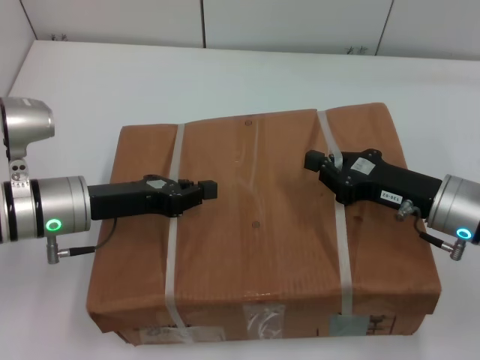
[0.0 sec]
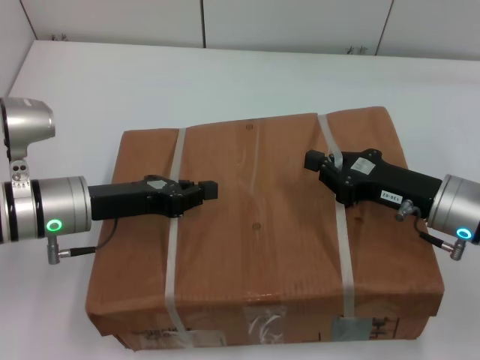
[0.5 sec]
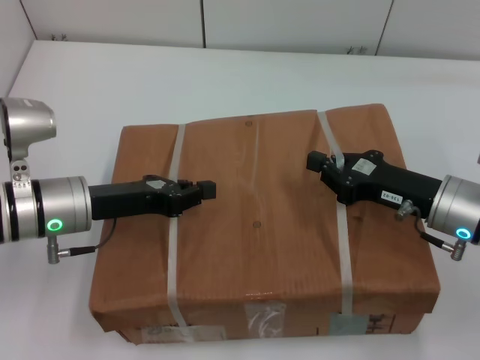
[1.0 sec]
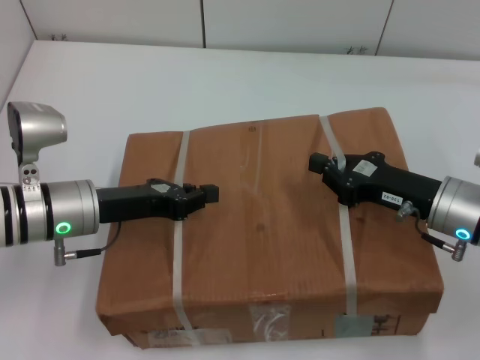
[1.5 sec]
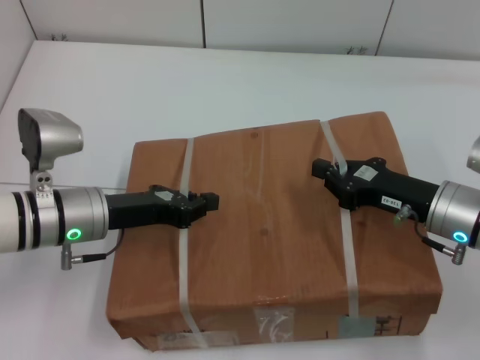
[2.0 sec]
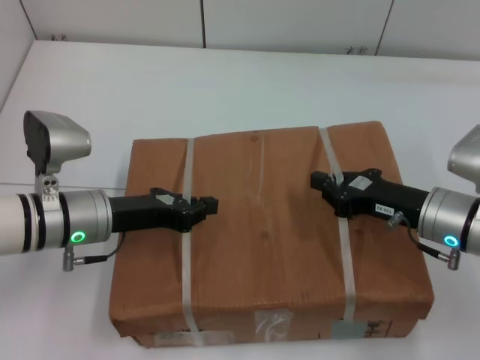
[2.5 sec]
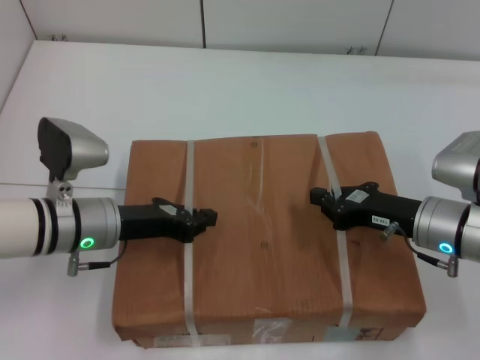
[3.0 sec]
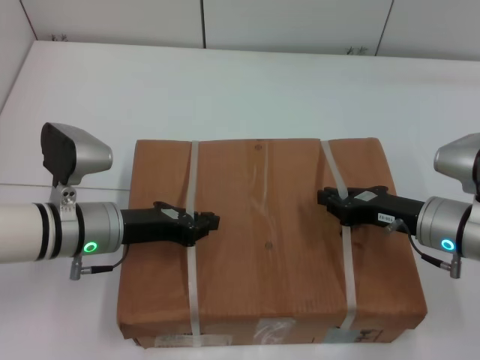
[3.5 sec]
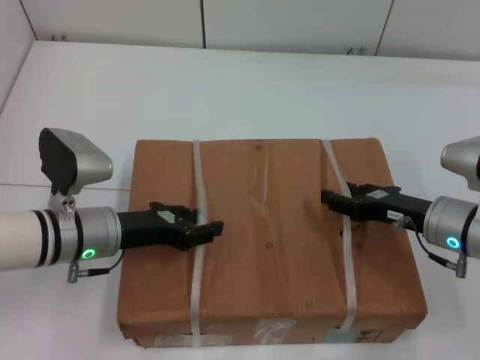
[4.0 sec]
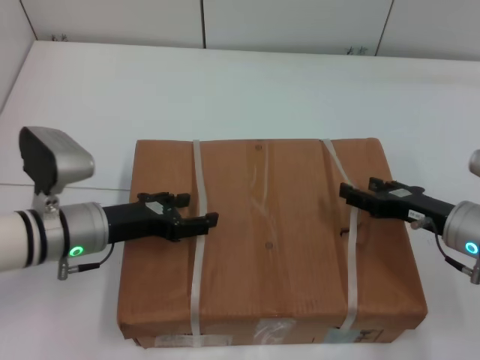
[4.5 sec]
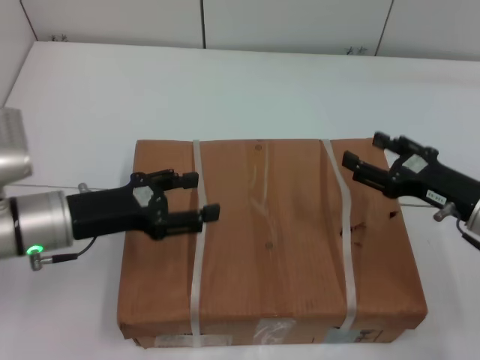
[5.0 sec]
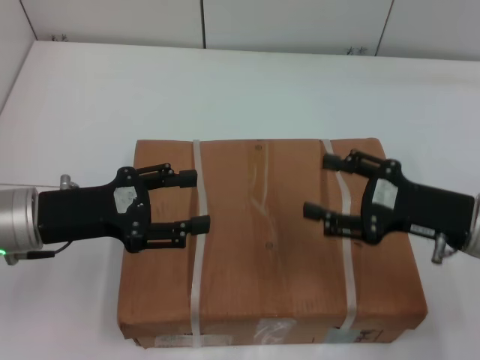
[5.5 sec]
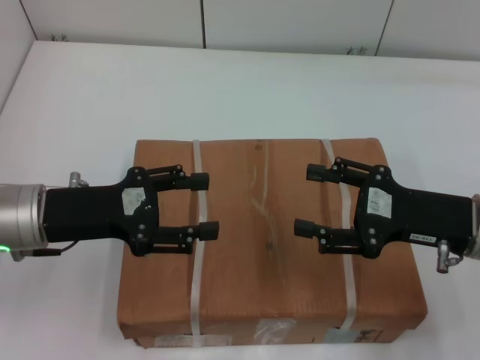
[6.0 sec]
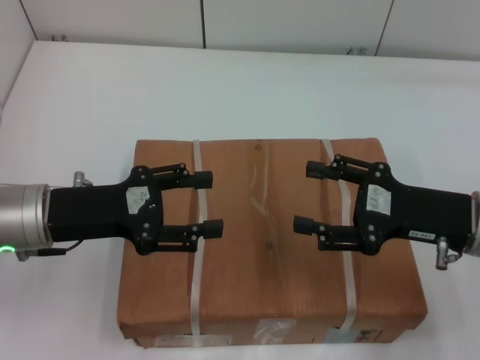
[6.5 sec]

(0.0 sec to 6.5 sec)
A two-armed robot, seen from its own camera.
Task of the whole recording: place the box on the table with both arms.
Step, 0.0 sec - 3.0 sec: Place the box on the table with left gripper.
Step, 0.0 sec - 3.0 sec: Place the box on the table with right gripper.
Step, 3.5 sec - 4.0 sec: Loosen the box on the table with left gripper.
Step, 3.5 sec - 4.0 sec: Loosen the box on the table with right gripper.
0.0 sec - 2.0 sec: The grippers move only a little.
2.0 sec - 4.5 sec: The right gripper opens its fingers. The left gripper opens up.
4.5 sec - 6.5 sec: Both grippers move upward, some 5 cm.

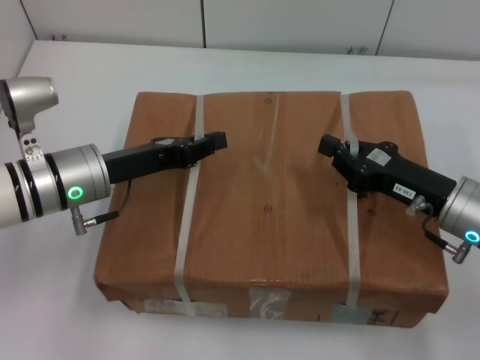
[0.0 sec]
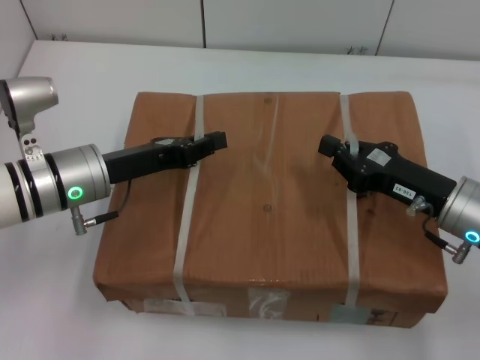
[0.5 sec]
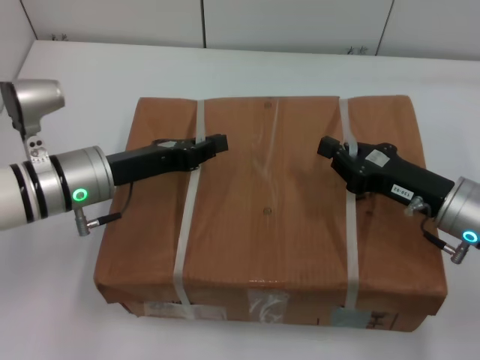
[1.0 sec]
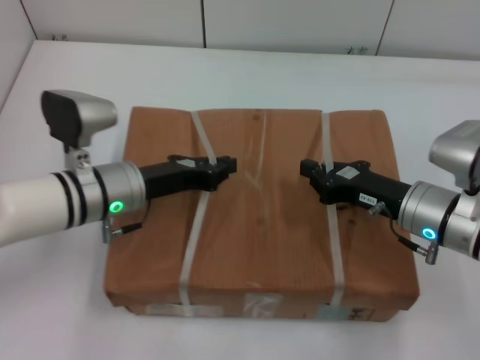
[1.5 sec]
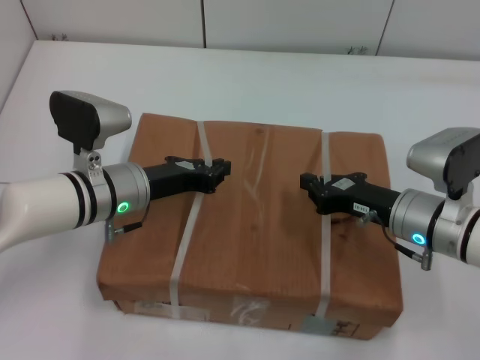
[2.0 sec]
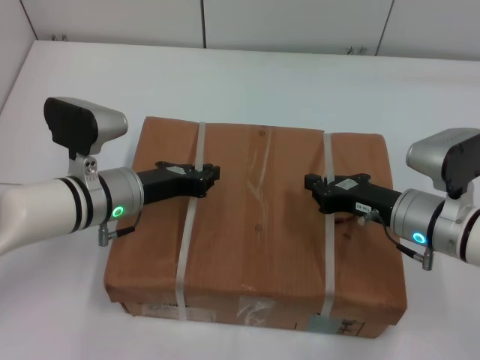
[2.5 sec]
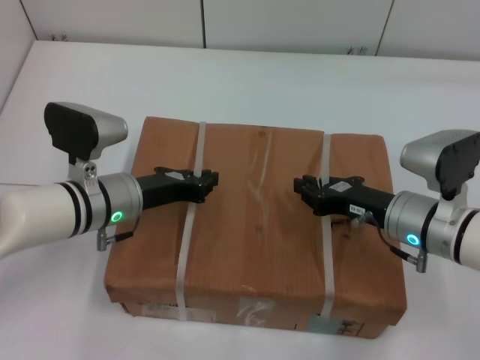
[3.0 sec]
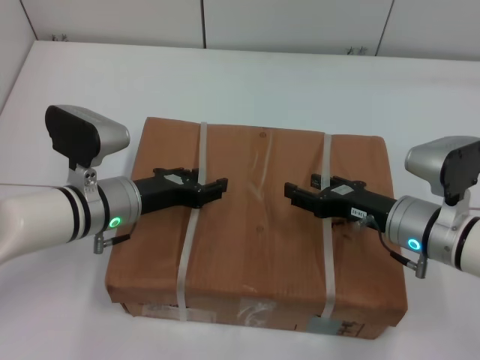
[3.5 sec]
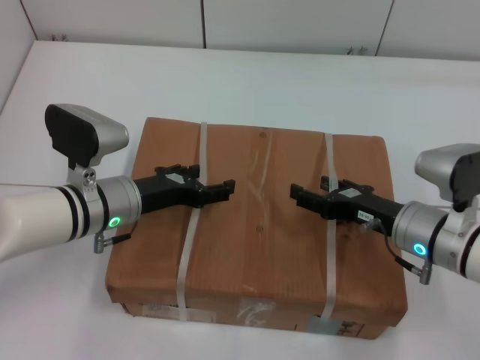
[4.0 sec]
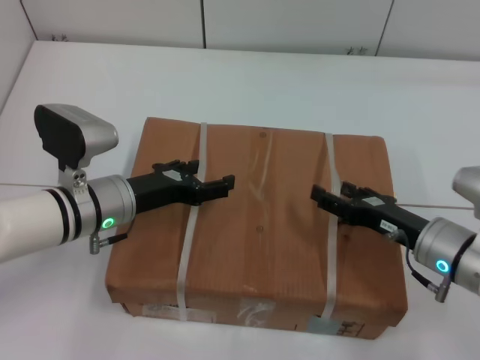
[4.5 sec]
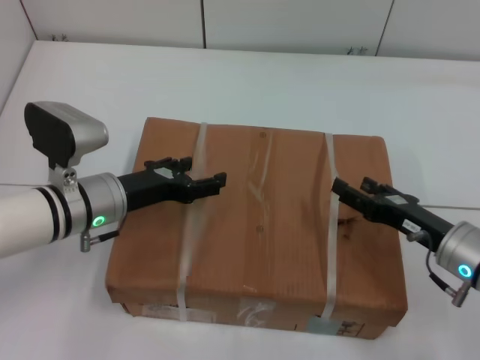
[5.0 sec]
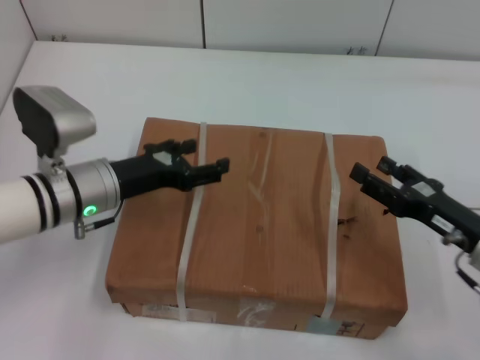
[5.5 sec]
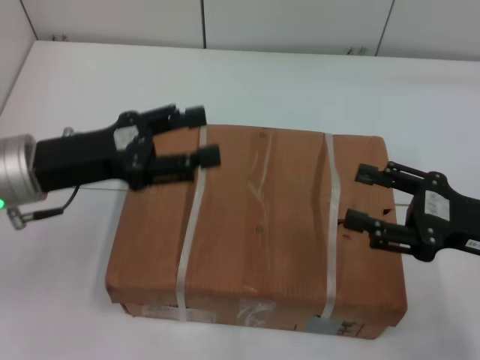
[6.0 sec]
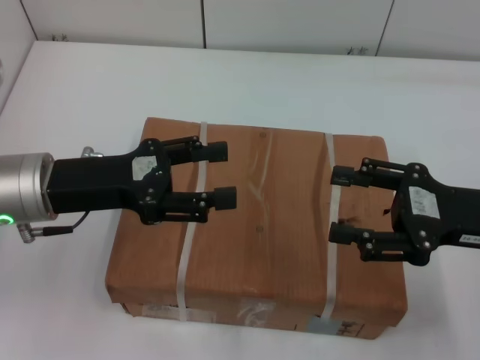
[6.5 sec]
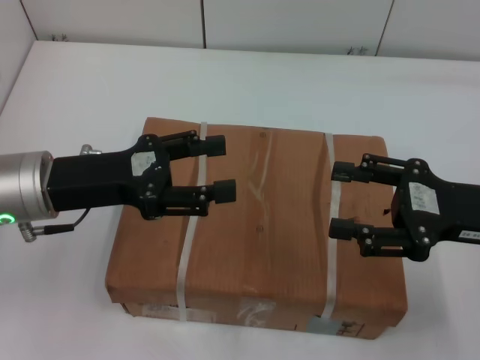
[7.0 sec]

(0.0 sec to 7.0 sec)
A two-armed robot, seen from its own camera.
Task of the whole recording: place the box on the table with both arms.
Step, 0.0 sec - 2.0 sec: Place the box on the table with left gripper.
Step, 0.0 sec - 2.0 sec: Place the box on the table with right gripper.
Step, 2.5 sec - 5.0 sec: Loosen the box on the table with left gripper.
Step, 2.5 sec - 5.0 sec: Loosen the box on the table with right gripper.
0.0 sec - 2.0 sec: The right gripper moves some 5 cm; the left gripper ends up about 5 cm from where it was.
2.0 sec - 3.5 sec: The left gripper opens; the right gripper opens up.
3.5 sec - 5.0 sec: The left gripper opens up. The right gripper shifts by approximately 5 cm.
5.0 sec - 7.0 sec: Both grippers travel together upward, roughly 10 cm.
